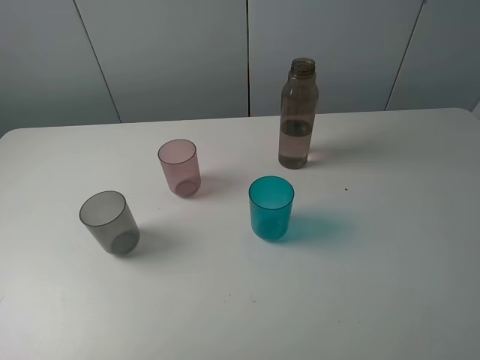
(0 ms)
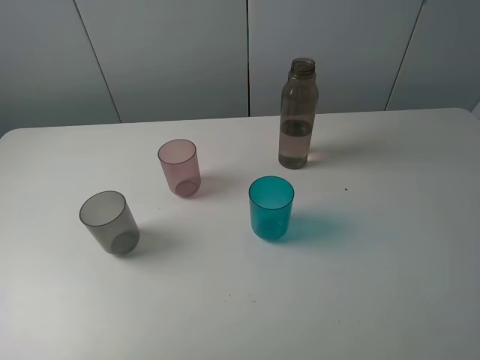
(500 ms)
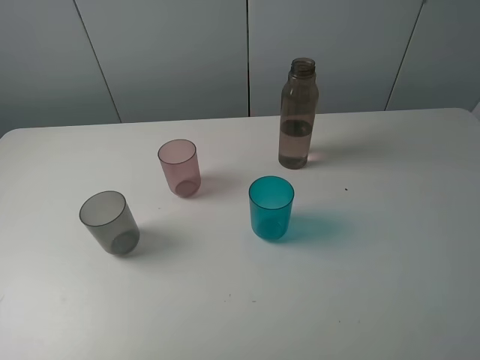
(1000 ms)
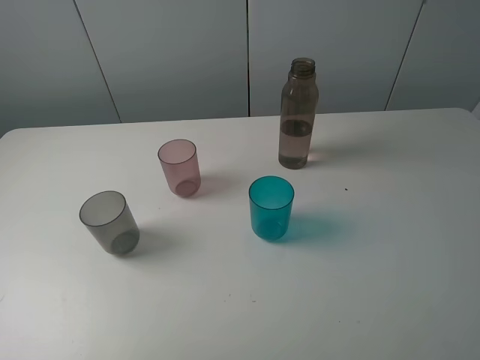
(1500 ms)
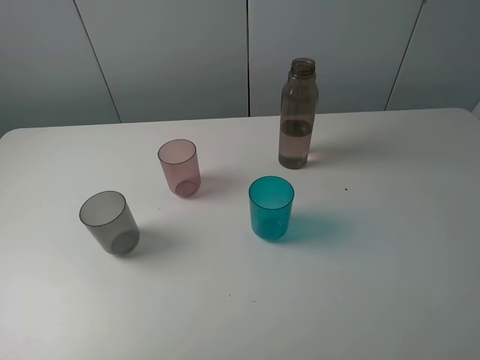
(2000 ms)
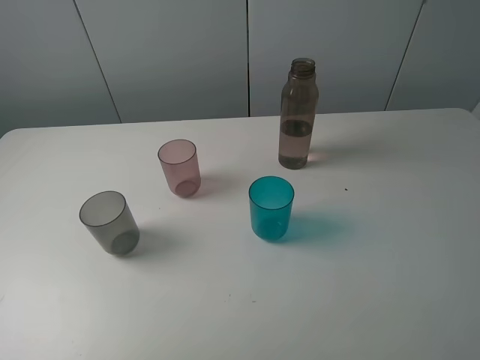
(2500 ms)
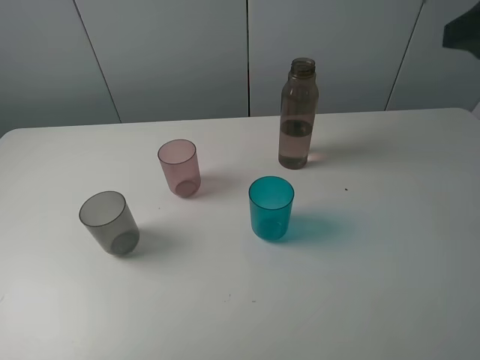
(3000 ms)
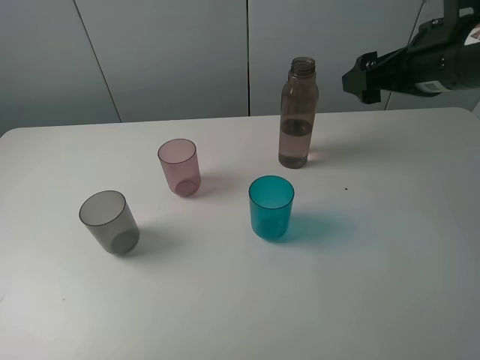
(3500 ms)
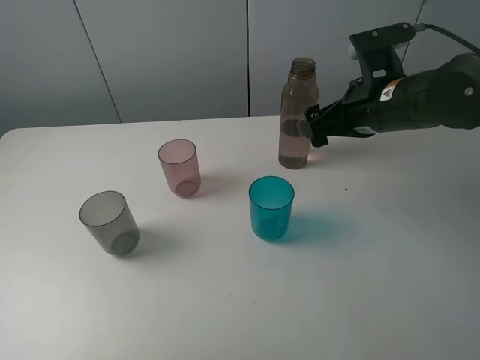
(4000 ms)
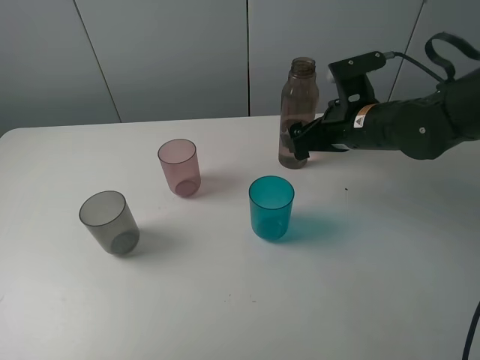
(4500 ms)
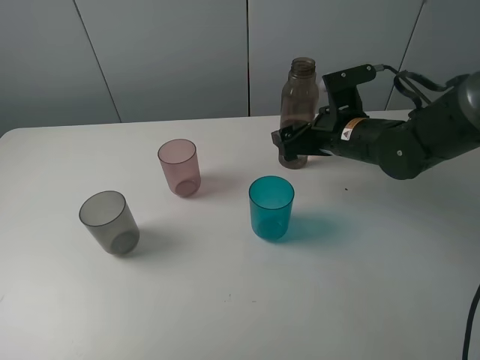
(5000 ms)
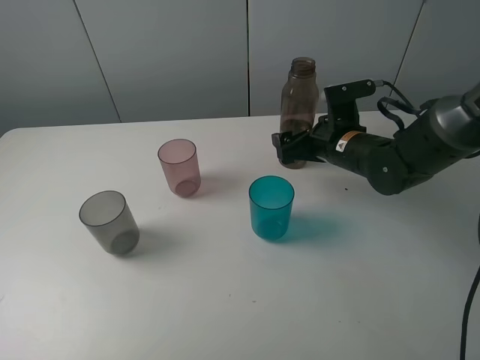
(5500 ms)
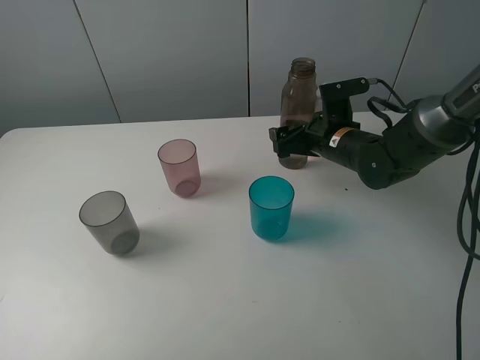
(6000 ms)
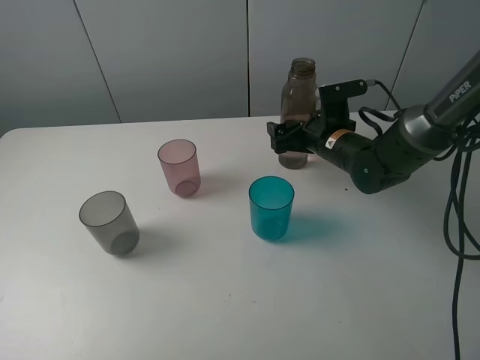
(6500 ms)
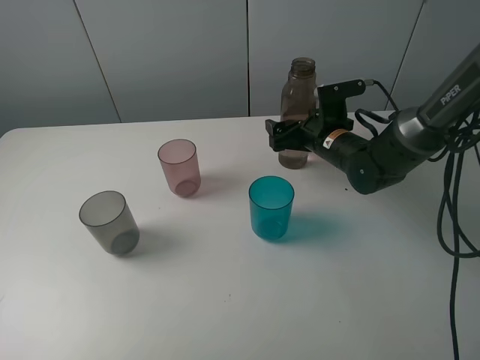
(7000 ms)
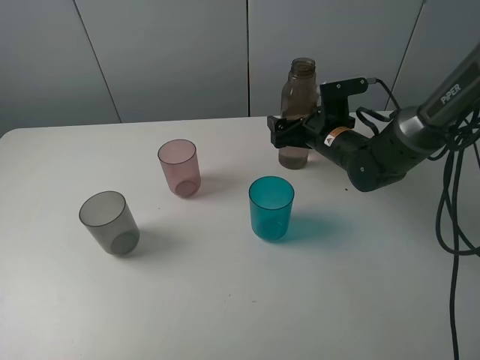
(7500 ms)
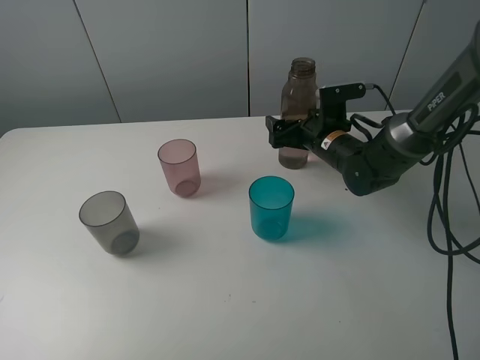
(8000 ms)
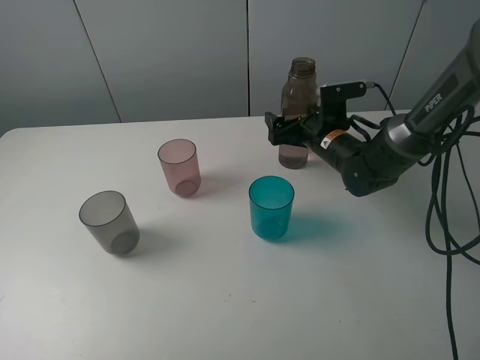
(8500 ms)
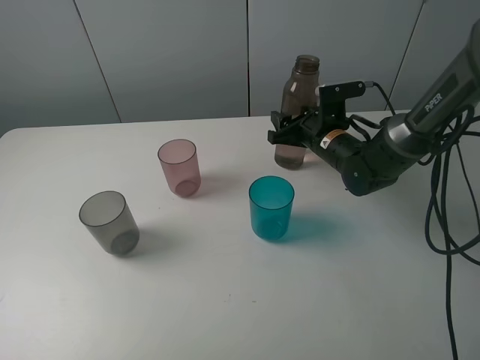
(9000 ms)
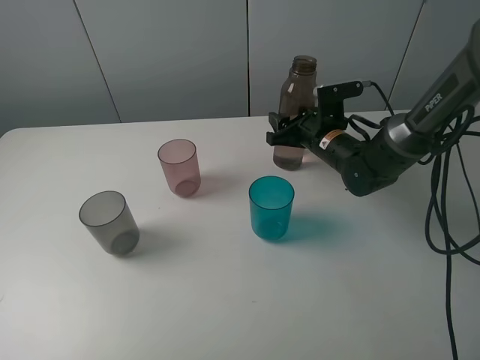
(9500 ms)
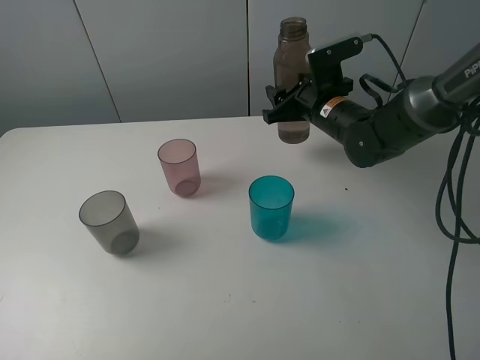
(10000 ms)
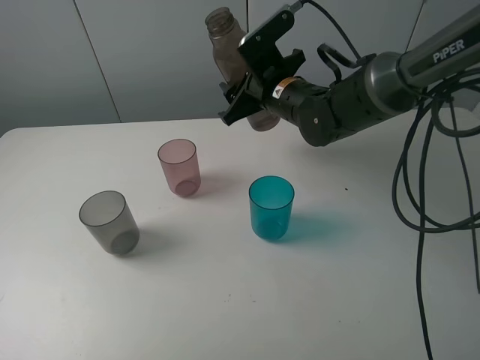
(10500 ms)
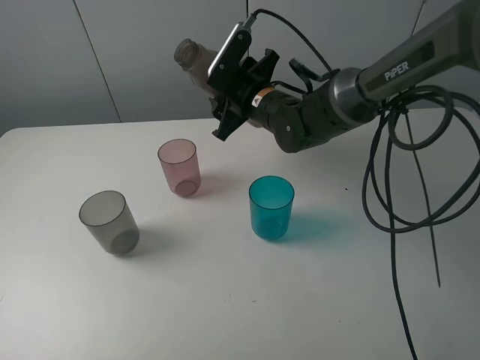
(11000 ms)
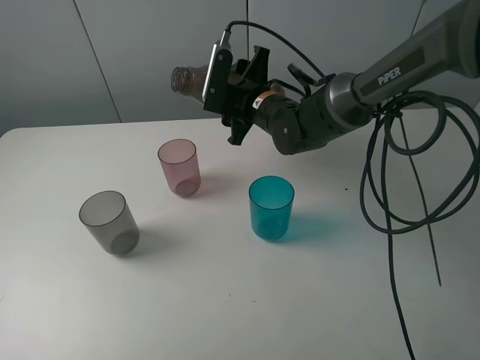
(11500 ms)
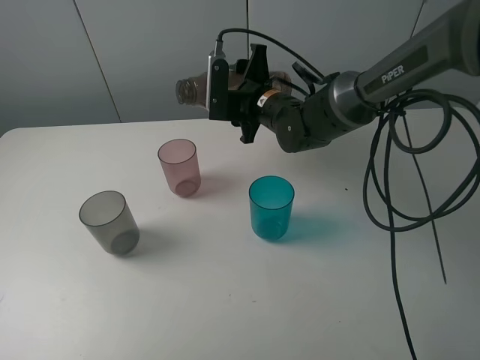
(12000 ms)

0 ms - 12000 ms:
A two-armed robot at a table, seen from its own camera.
Task of the whole recording: pick up the bottle filled with water and pour water into the middle cup of the three cups.
Step, 0 ms - 9500 ms: Grasp the brown bottle with the right gripper.
0 ms - 2000 ms: Both grippers stay put.
2000 ms - 4000 ms: The right gripper heads forward and to the left, covering approximately 30 cm.
4000 ms - 6000 ms: The right gripper heads downward and forward, covering roughly 10 cm.
6000 ms - 8000 ms: The grippers stay close to where they were, moving slightly.
8000 ms - 10000 ms: The right gripper goes approximately 5 cm upward, and closes up.
10000 ms - 12000 ms: The right gripper shifts approximately 10 cm to the left.

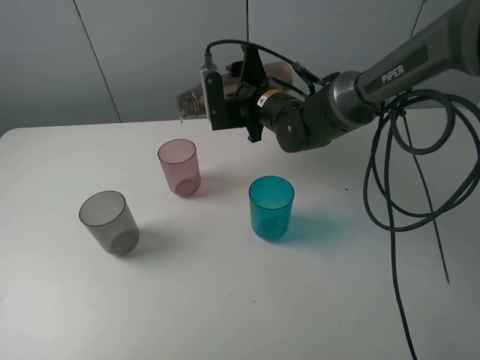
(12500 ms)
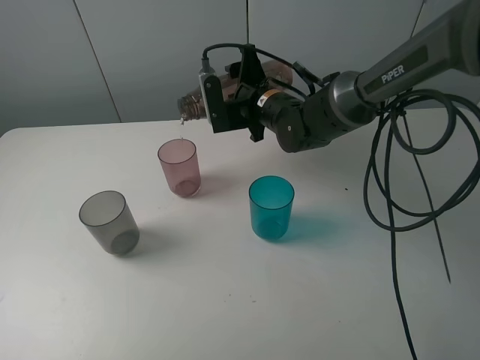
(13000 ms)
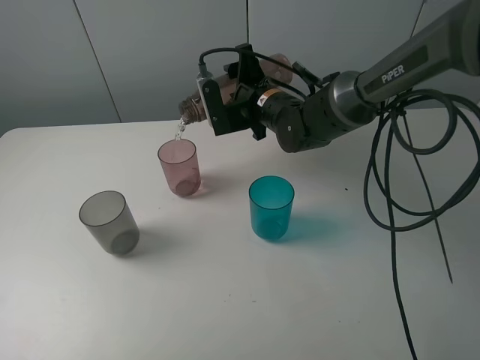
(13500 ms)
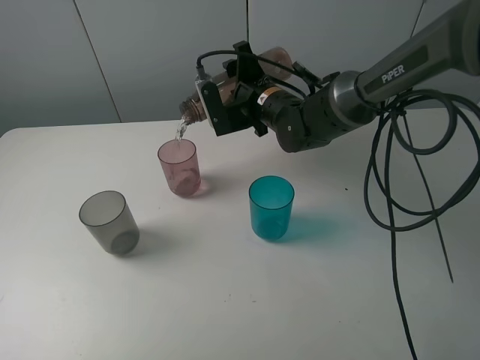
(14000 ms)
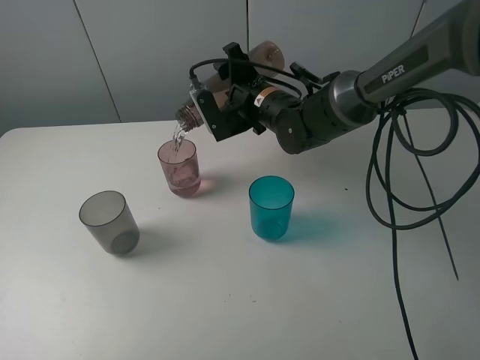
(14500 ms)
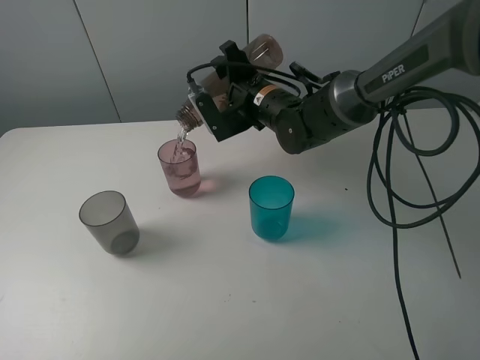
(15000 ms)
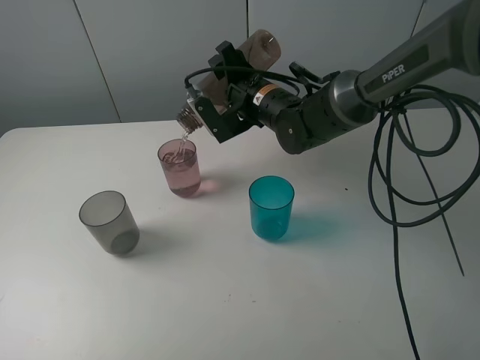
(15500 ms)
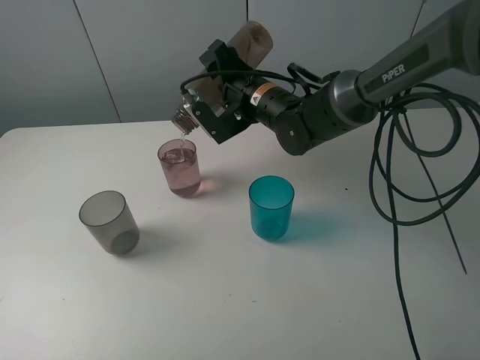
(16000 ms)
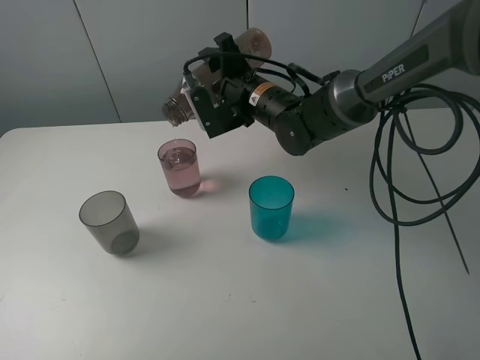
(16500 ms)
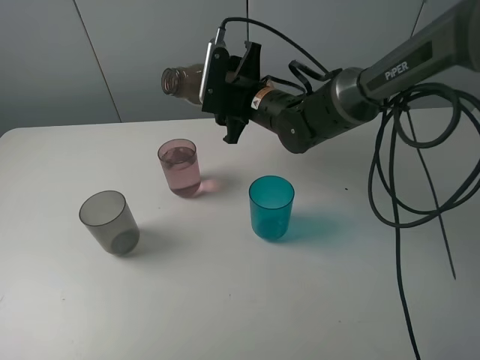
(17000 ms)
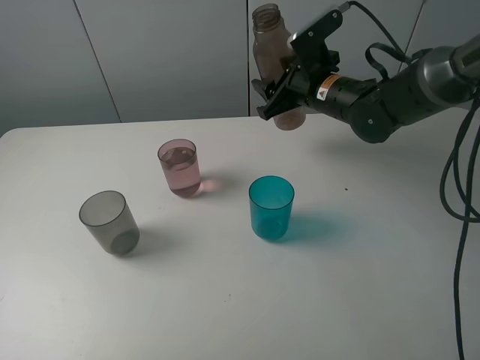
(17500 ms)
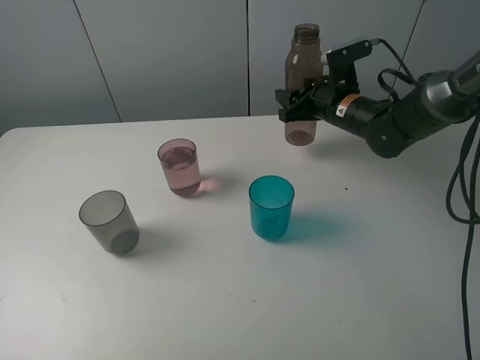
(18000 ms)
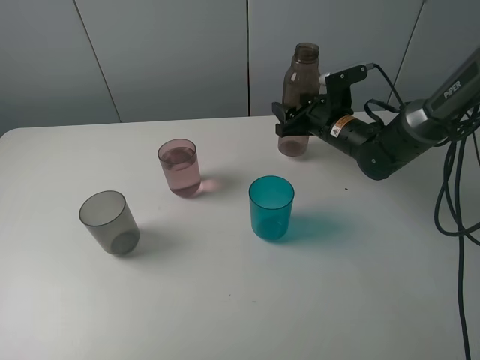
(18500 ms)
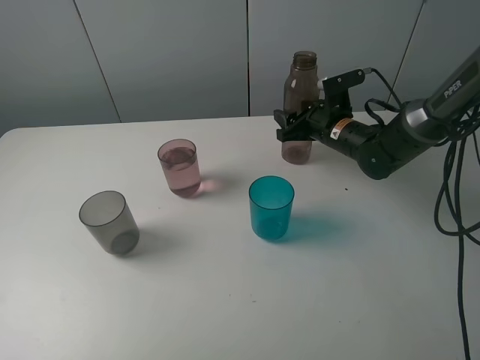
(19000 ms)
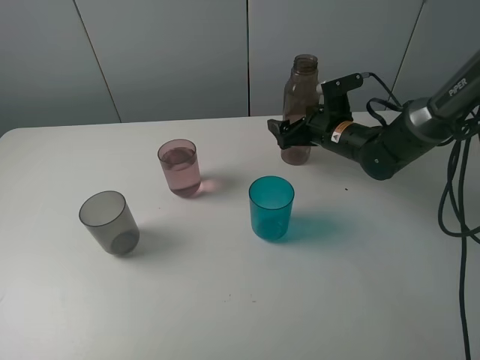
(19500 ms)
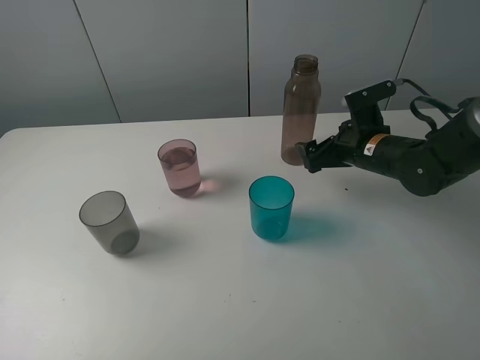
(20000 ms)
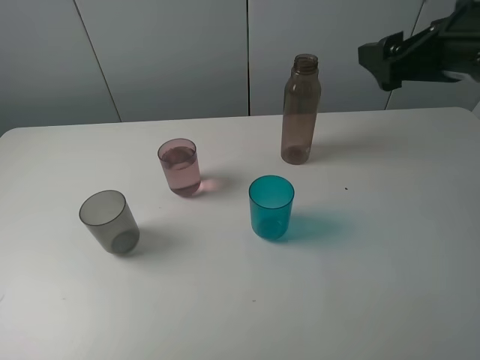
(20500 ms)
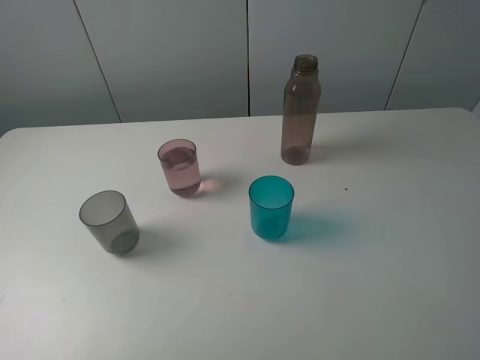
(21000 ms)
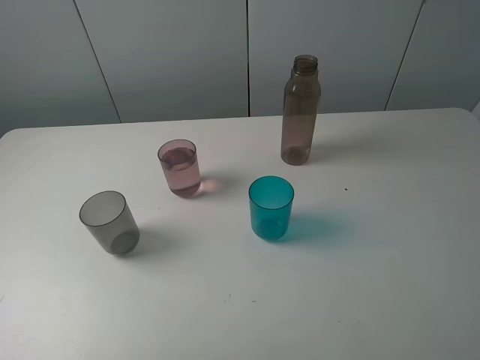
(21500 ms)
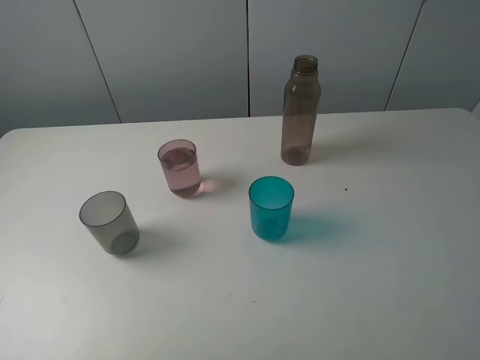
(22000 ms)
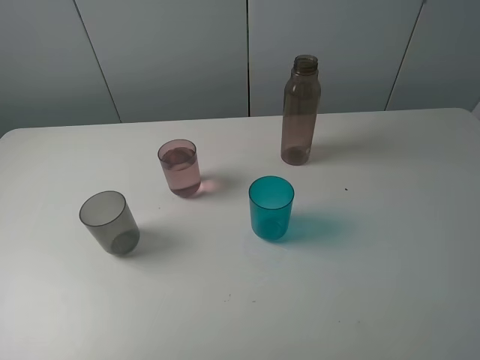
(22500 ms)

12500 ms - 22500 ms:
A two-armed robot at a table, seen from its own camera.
Task of the whole recording: pick up the bottle filled with water and pour water into the middle cup of the three cups.
Step, 12500 ms - 17000 ms: Pour water from brown bottle to red cup with the right gripper.
Step, 17500 ms - 20000 ms: Place the brown bottle with the right gripper.
12500 ms - 14500 ms: The grippers stay close to where they were, moving slightly.
14500 ms - 16500 ms: The grippers make only small movements.
16500 ms - 18500 ms: The right gripper heads to the right and downward, covering roughly 15 cm.
18500 ms - 20500 ms: The right gripper heads upward and backward, covering approximately 25 cm, and opens its fingers.
20500 ms - 22500 ms: The right gripper shifts roughly 25 cm backward.

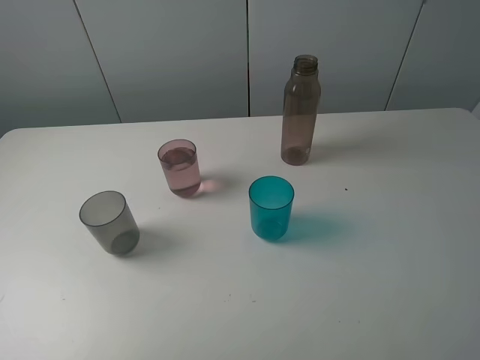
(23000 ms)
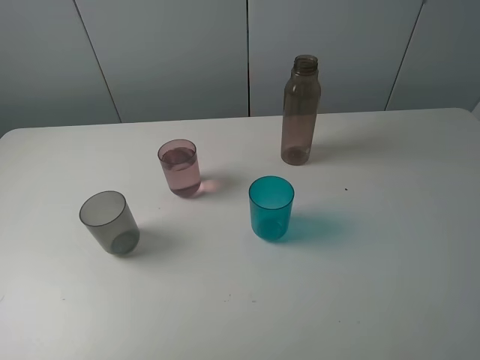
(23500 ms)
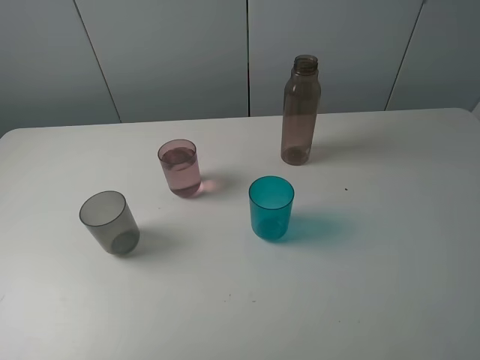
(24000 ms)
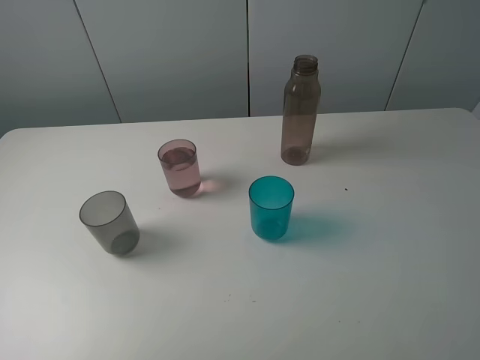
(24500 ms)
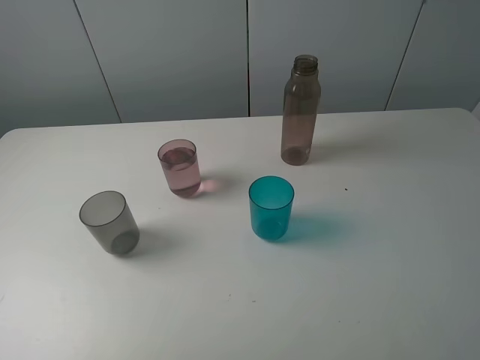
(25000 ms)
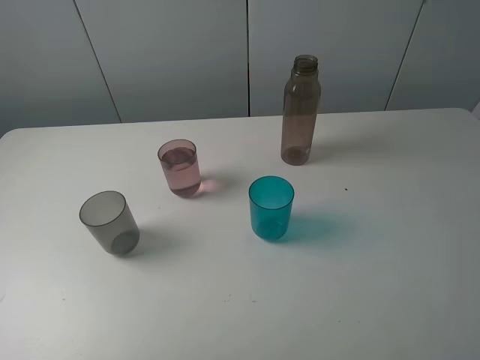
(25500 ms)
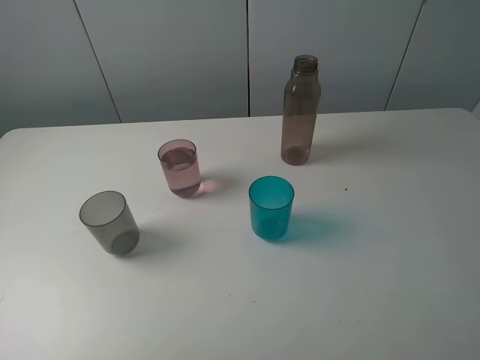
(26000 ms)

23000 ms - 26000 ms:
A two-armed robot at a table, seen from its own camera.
Task of the whole recording: pick up the bottle filled with water and pour water into the middle cup of the three cups.
23000 ms - 26000 ms: Both grippers stay about where they are.
